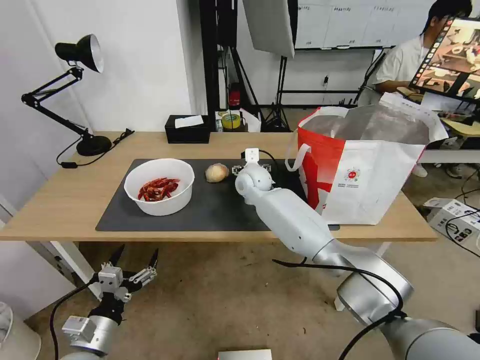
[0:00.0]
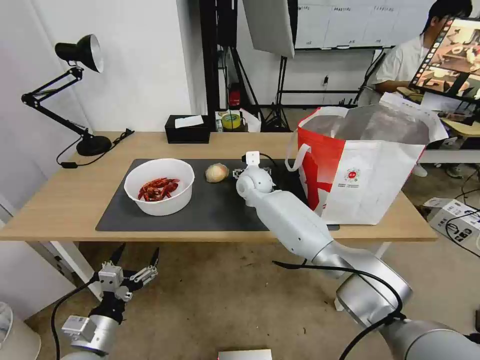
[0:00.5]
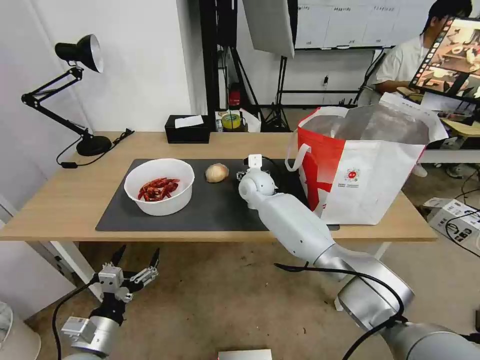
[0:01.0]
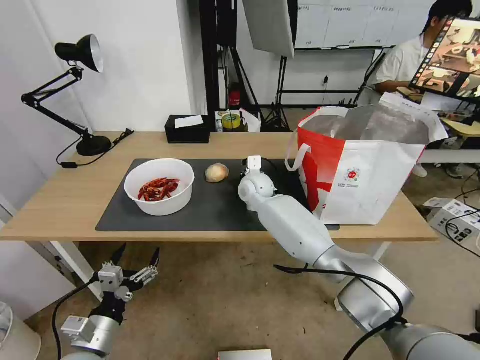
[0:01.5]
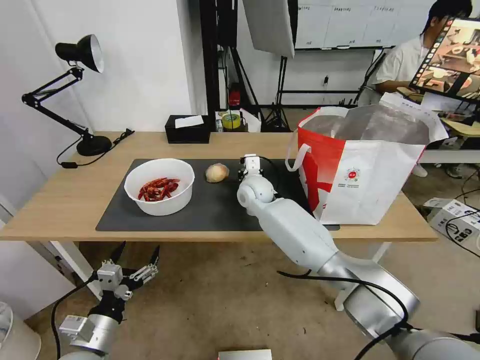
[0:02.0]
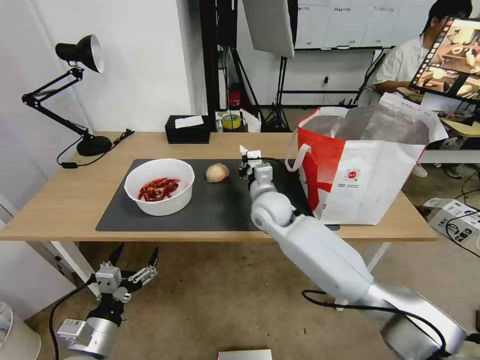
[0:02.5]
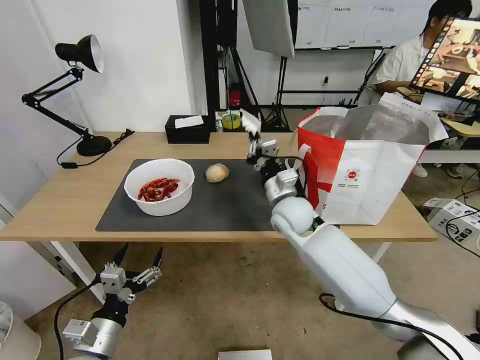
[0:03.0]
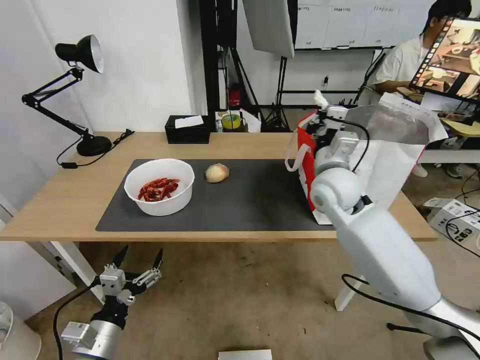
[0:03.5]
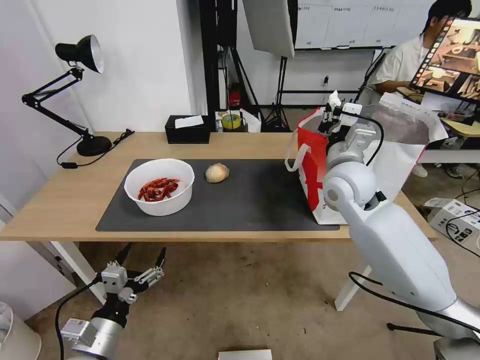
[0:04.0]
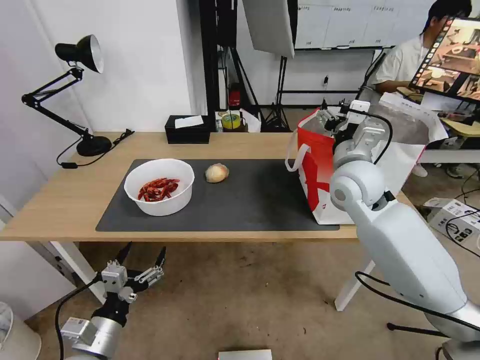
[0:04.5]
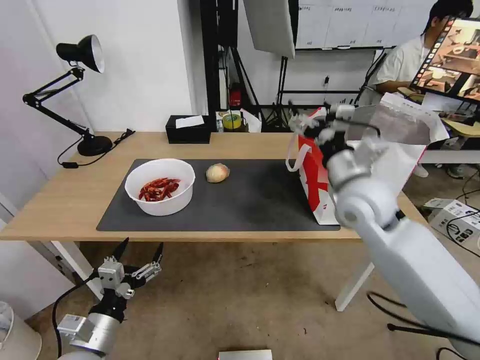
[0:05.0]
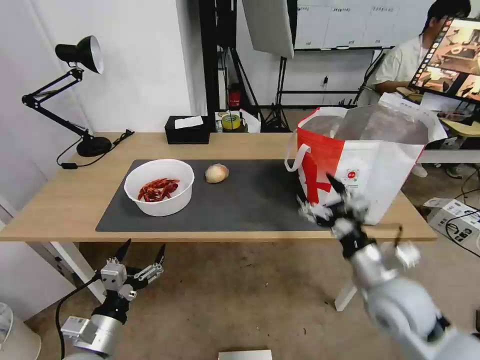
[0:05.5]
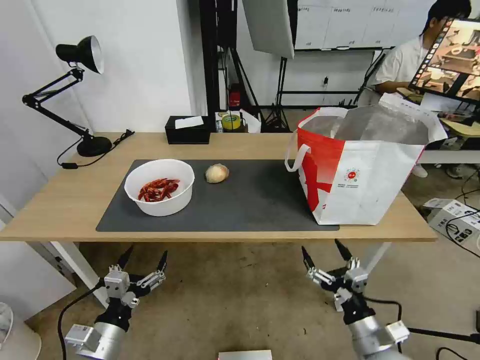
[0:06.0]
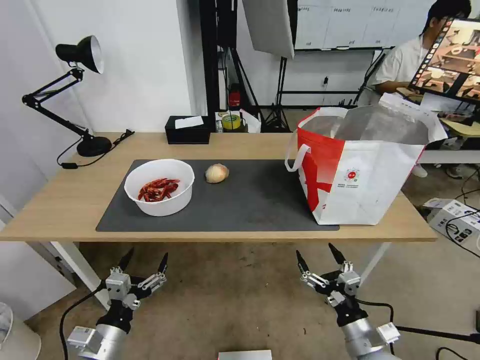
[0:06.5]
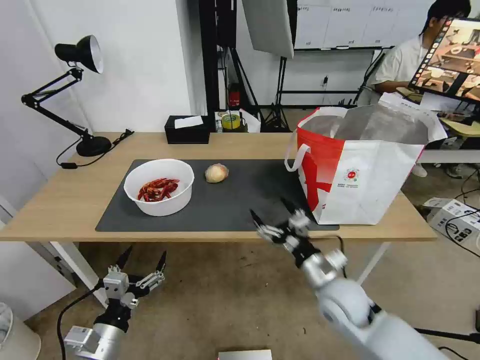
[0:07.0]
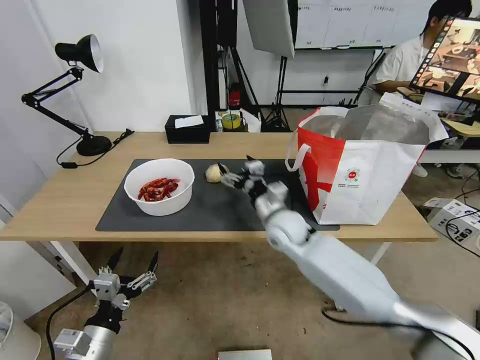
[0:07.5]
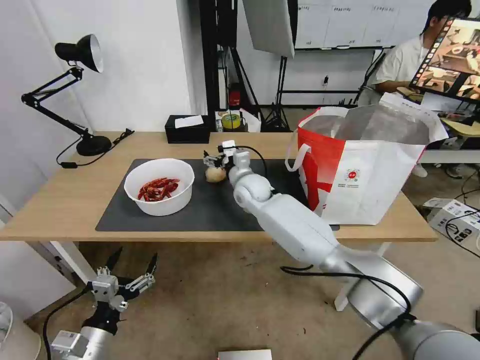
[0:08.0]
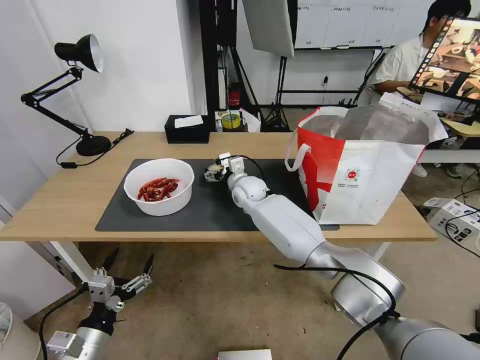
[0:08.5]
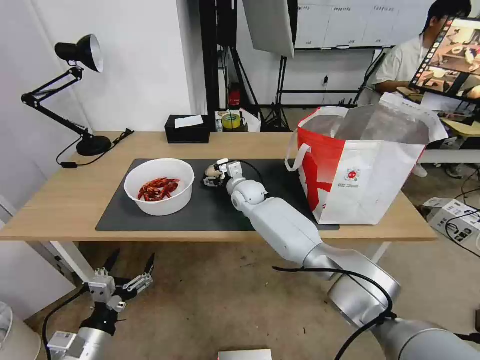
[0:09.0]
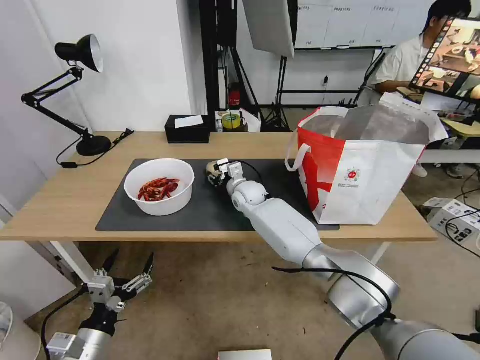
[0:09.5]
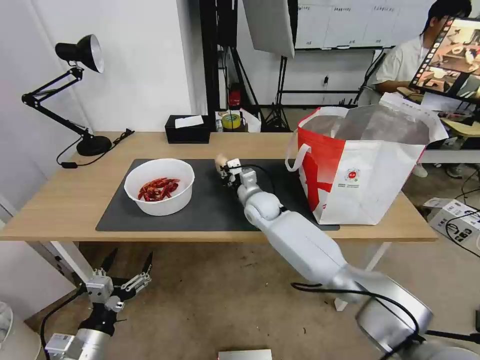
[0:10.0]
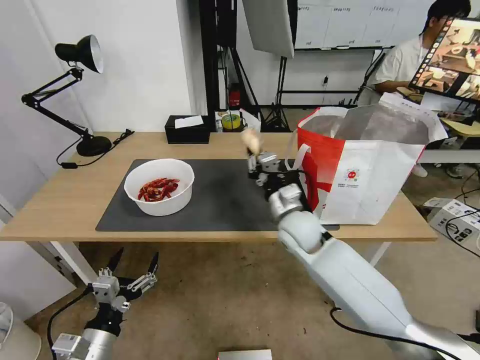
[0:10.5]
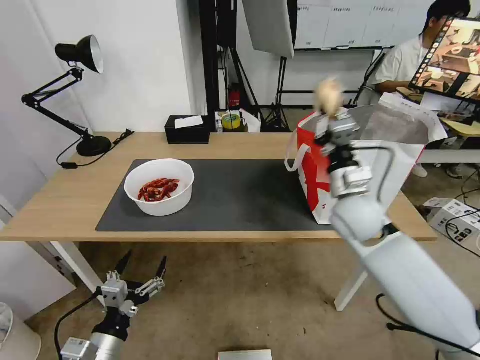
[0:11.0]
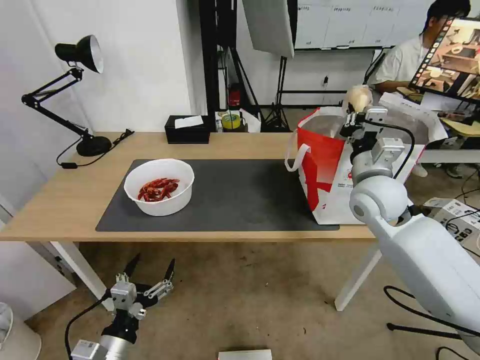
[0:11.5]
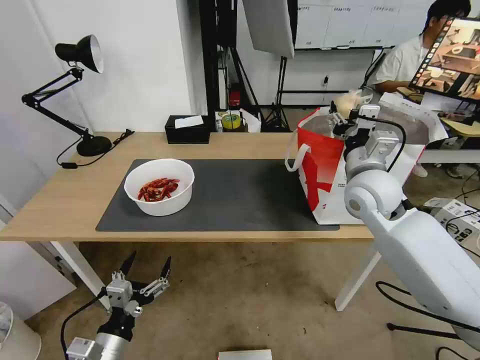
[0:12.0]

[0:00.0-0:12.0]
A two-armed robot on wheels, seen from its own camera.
Task of the whole recording: Pick up the trash from the table and place it into the takeout bag.
0:00.0 to 0:02.0: The right gripper closes up.
0:02.0 to 0:04.0: The right gripper heads to the right, upward and backward, covering approximately 25 cm.
0:04.0 to 0:06.0: The right gripper shifts approximately 40 cm backward and downward, and opens up.
0:06.0 to 0:08.0: The right gripper is displaced forward and to the left by approximately 50 cm.
0:08.0 to 0:10.0: The right gripper shifts some 5 cm downward, and closes up.
0:10.0 to 0:12.0: The right gripper moves to the right, upward and backward, about 25 cm, and opens up.

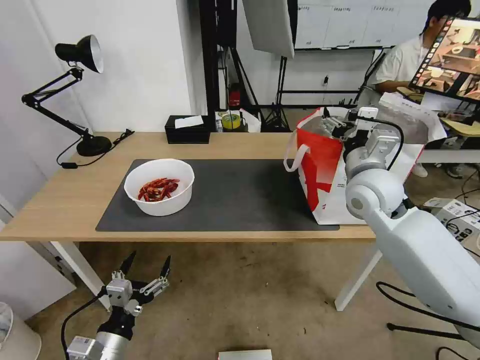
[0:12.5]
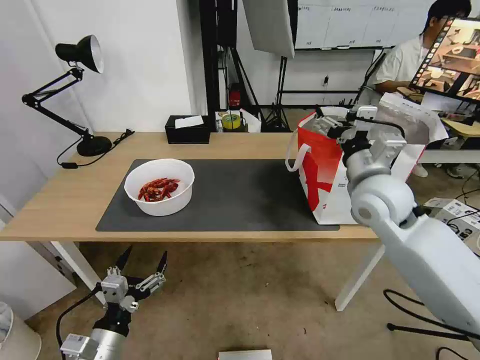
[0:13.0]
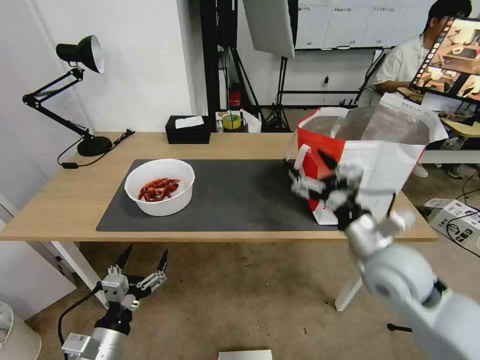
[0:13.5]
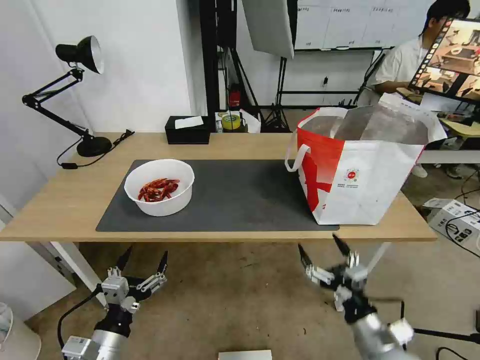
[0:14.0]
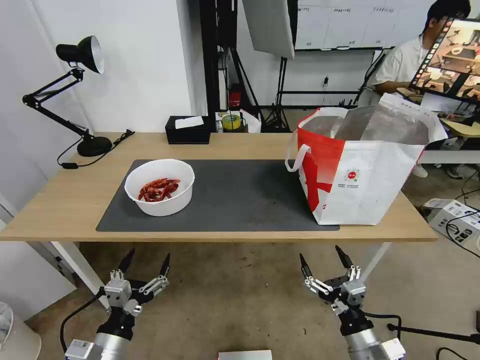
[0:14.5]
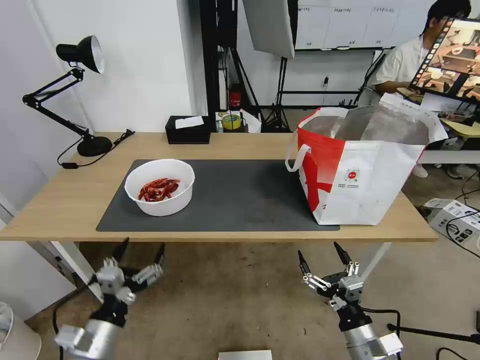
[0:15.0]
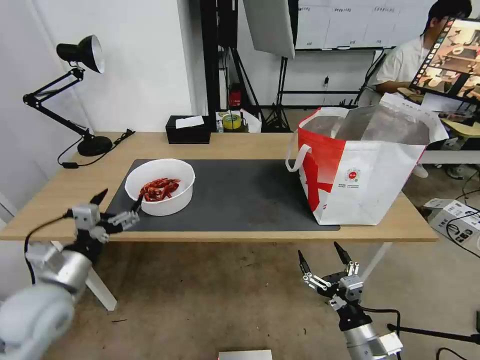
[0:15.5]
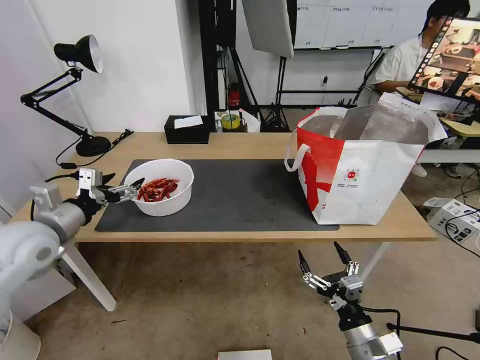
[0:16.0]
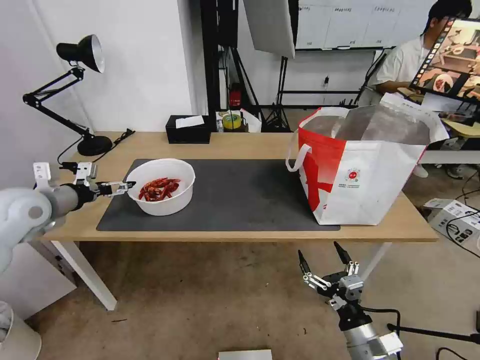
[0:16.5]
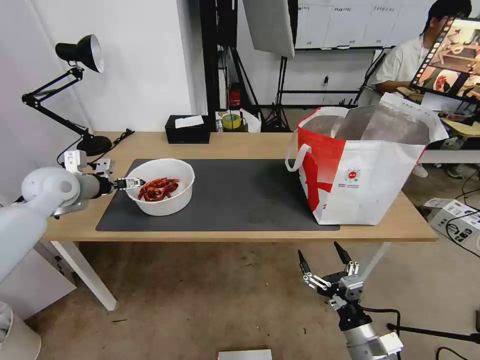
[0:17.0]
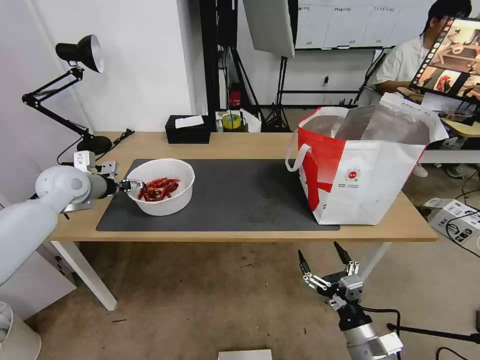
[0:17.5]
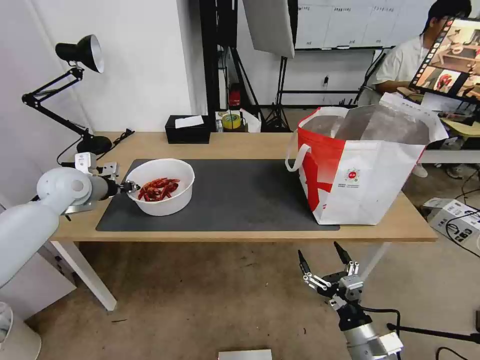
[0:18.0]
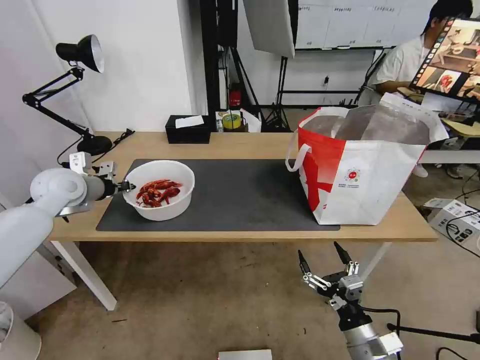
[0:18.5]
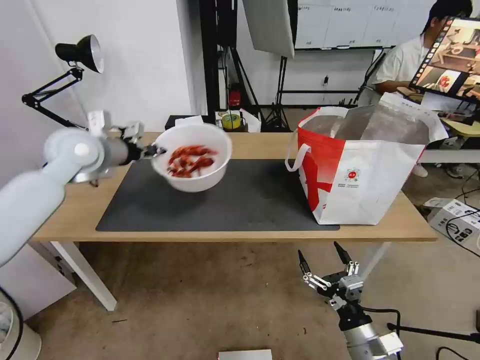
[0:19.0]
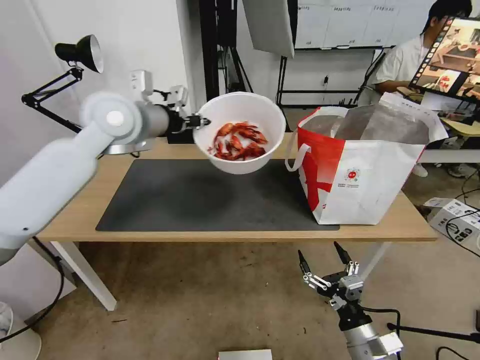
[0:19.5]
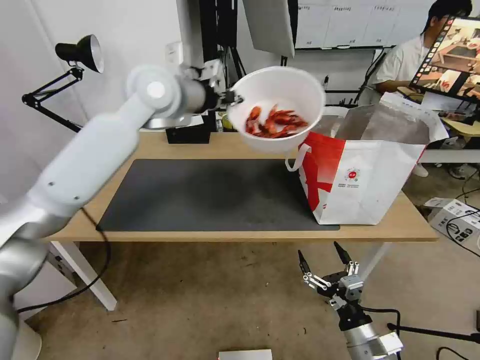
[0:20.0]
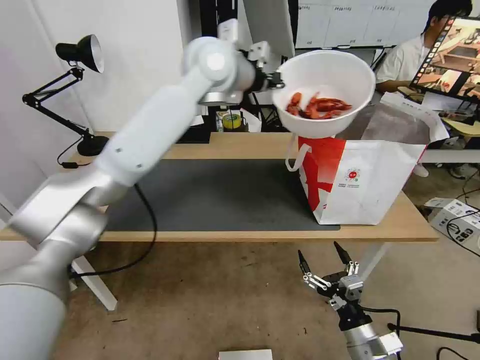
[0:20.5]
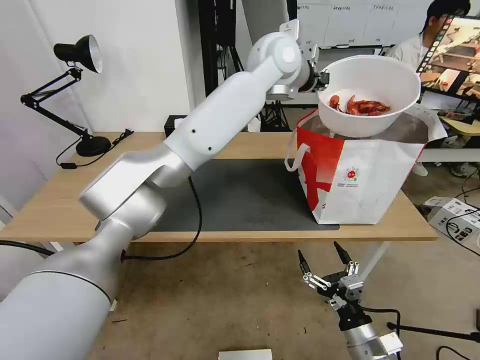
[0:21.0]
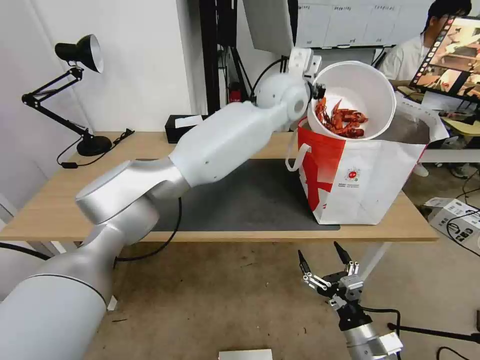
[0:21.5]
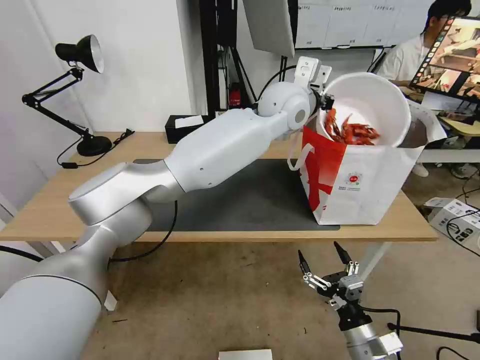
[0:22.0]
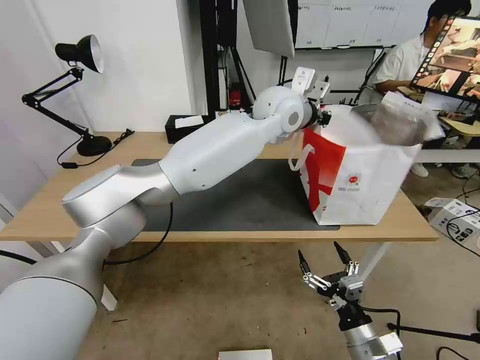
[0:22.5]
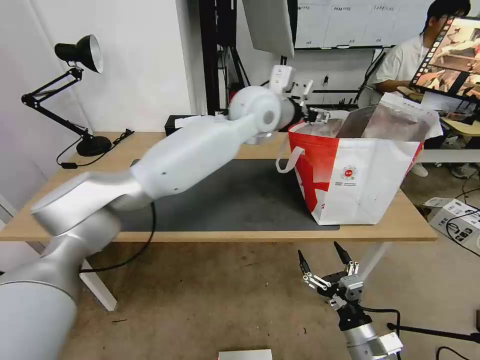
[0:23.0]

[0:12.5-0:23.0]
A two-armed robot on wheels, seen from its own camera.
Task of the whole recording: Pick up the trash from the table and place it into the takeout bag.
0:12.5 to 0:14.5: The right gripper travels backward and downward by roughly 40 cm.
0:14.5 to 0:16.5: The left gripper heads forward, upward and to the left, covering approximately 40 cm.
0:16.5 to 0:19.0: The left gripper shifts roughly 15 cm to the right, upward and forward, and closes its fingers.
0:19.0 to 0:21.0: The left gripper goes about 40 cm to the right.
0:21.0 to 0:23.0: The left gripper moves downward, about 5 cm, and opens its fingers.

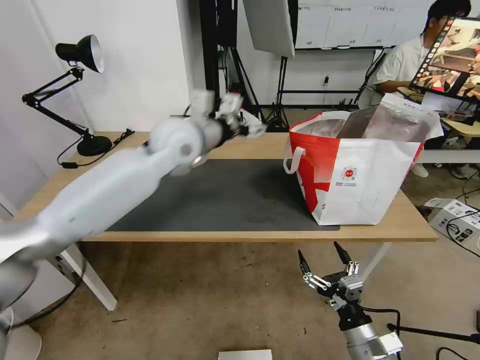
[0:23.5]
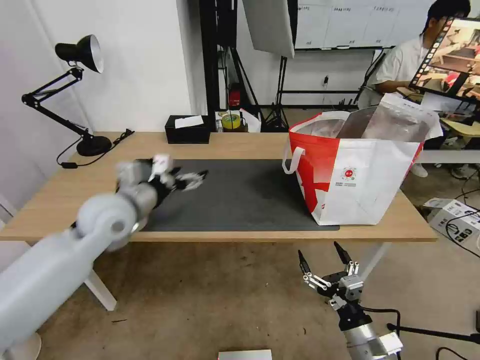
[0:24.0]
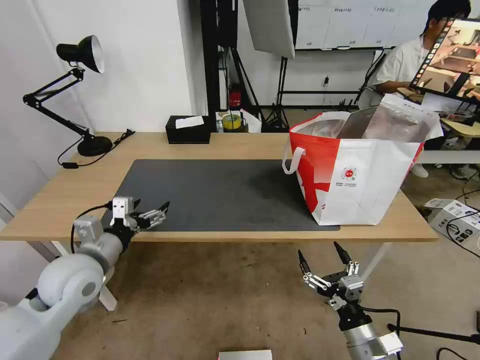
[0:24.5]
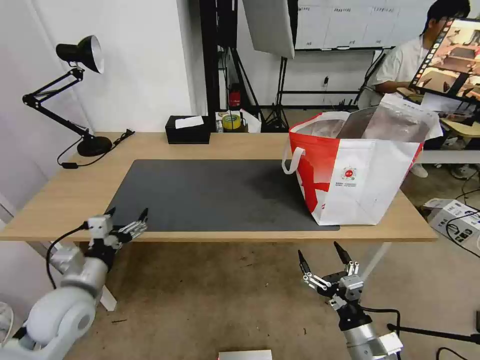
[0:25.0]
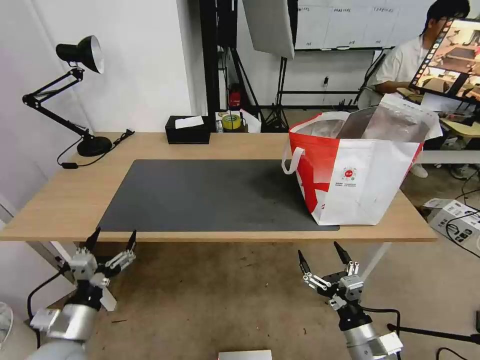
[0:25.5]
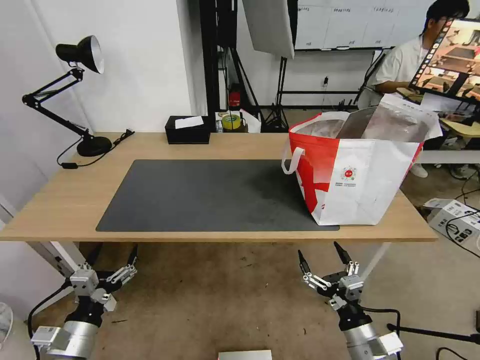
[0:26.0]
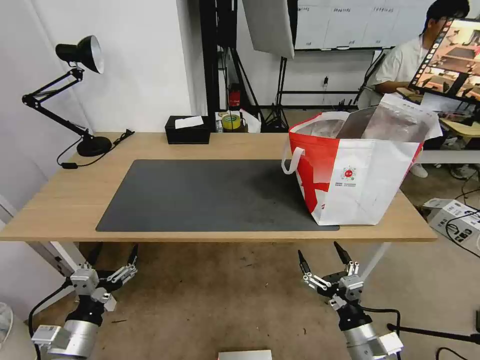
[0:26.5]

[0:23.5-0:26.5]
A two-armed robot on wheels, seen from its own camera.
Task of the whole recording: Pick up the trash from the table and place it into the takeout bag.
0:23.5 to 0:25.0: The left gripper travels backward, downward and to the left by some 40 cm.
0:25.0 to 0:26.5: The left gripper shifts approximately 15 cm backward and downward.
